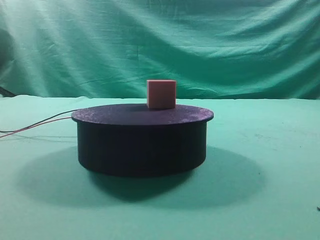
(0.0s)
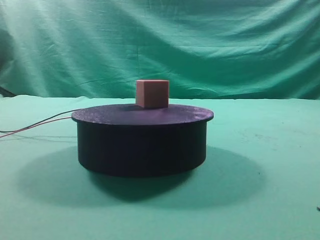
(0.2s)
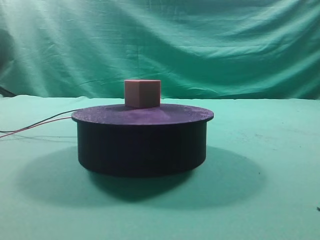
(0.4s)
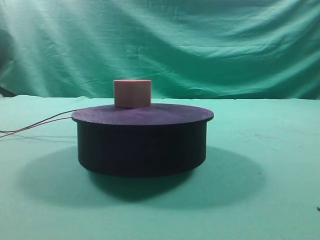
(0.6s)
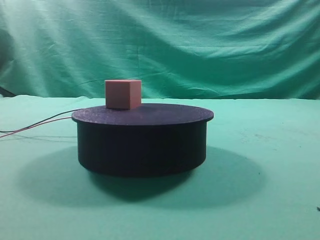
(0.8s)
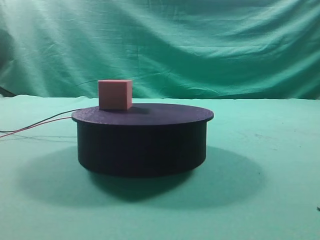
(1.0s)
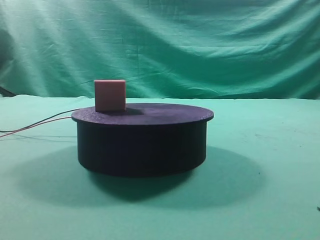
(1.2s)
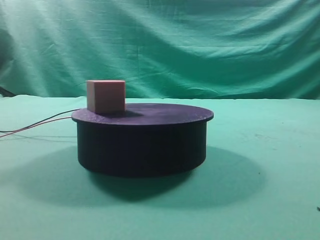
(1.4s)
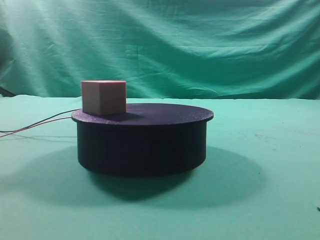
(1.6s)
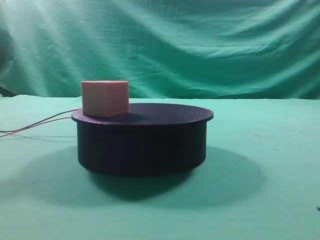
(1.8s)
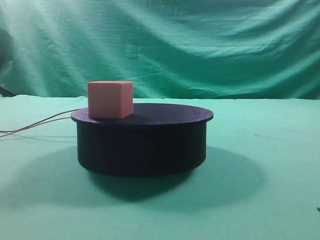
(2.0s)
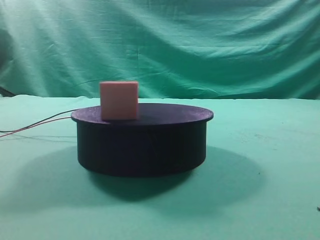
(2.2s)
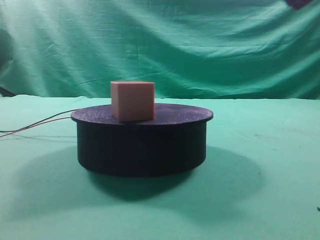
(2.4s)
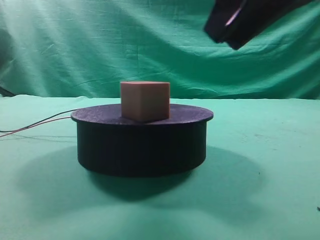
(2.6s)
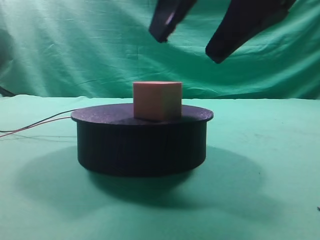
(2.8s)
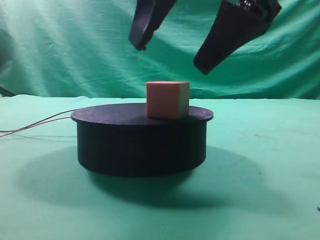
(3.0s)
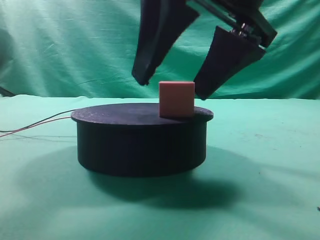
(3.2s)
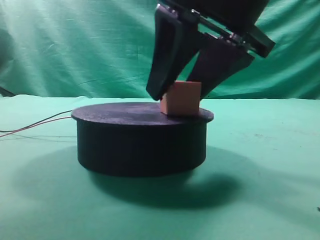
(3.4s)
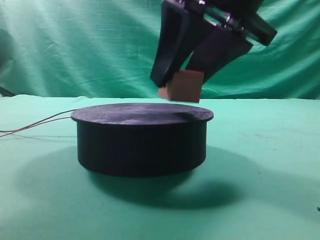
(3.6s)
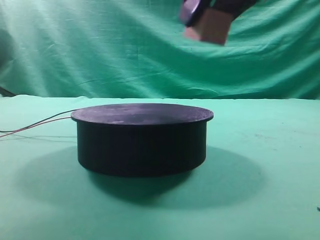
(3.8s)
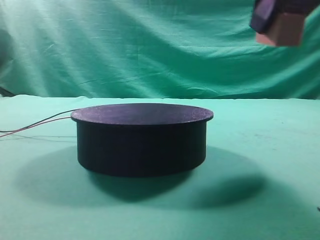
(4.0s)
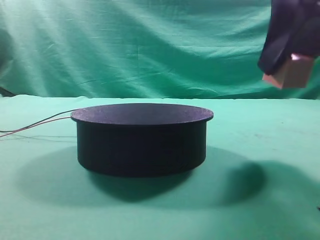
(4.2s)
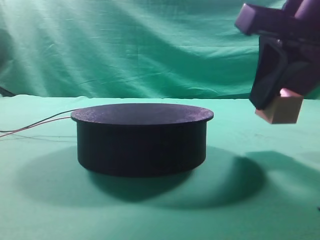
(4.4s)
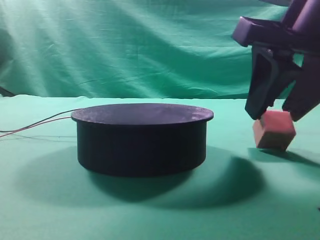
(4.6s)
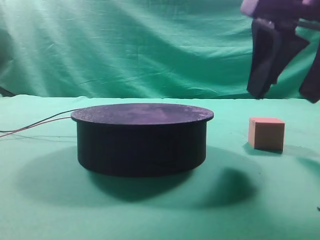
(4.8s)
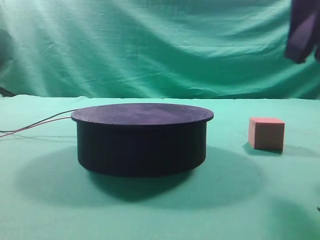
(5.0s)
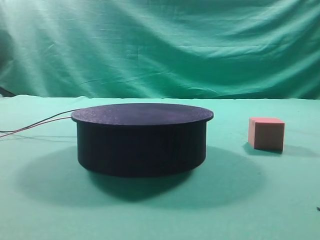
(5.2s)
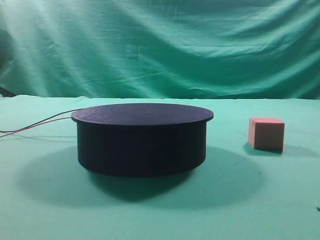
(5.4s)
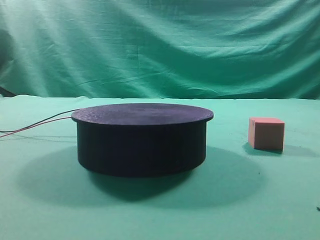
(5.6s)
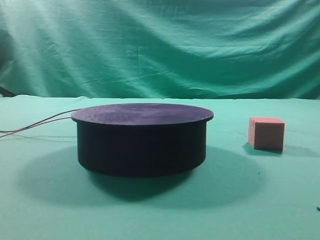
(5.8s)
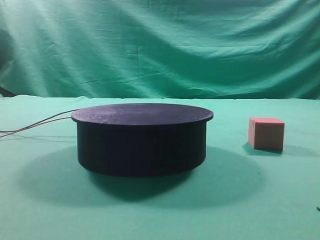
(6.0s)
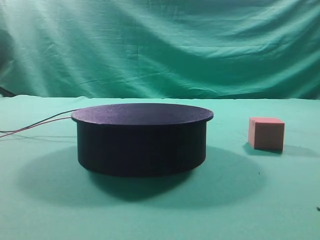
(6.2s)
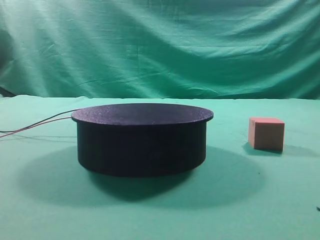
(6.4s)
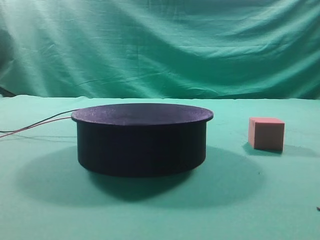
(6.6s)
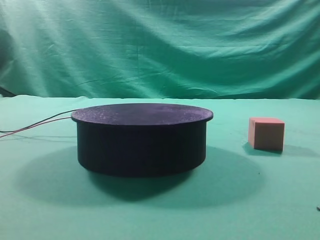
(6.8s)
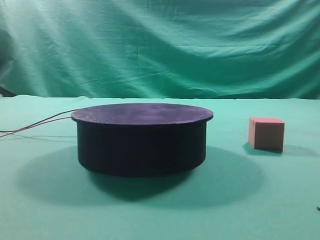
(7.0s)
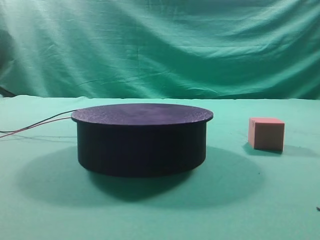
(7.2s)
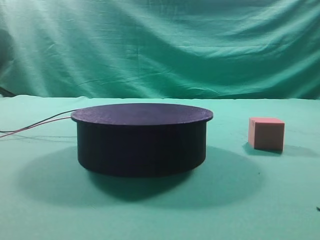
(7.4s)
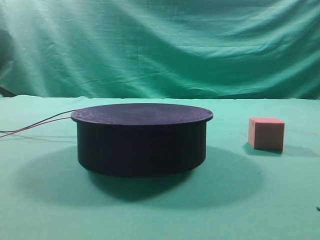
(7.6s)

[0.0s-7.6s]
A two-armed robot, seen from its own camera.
Task of the whole recording: grasp the rotating cube-shaped block on the turntable and place it on the table.
Step, 0.0s to 3.6s: Grasp the rotating cube-shaped block on the turntable.
Step, 3.8s to 4.8s: Place the cube on the desk.

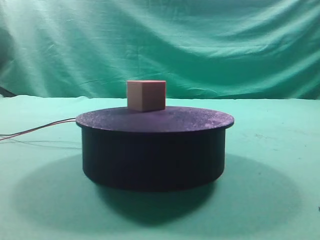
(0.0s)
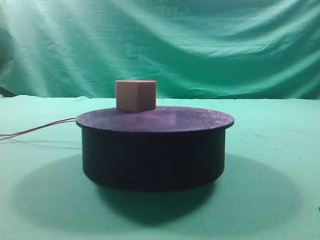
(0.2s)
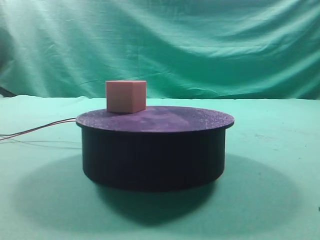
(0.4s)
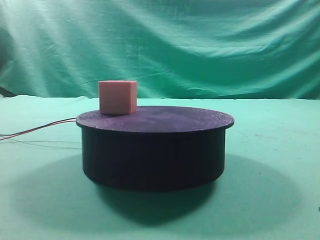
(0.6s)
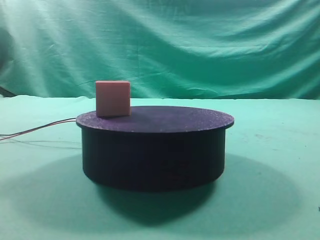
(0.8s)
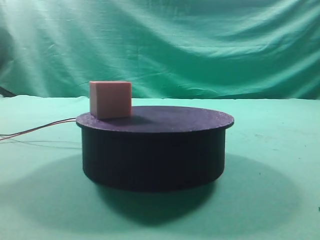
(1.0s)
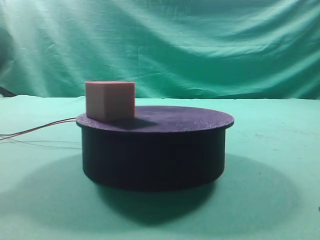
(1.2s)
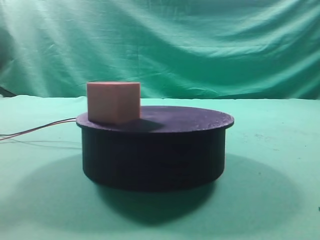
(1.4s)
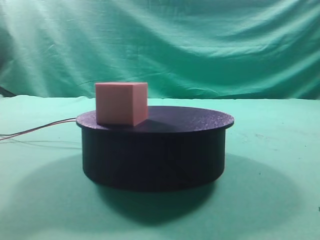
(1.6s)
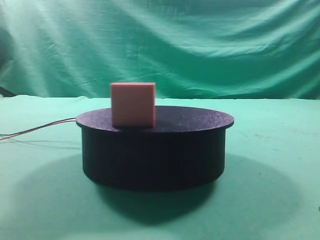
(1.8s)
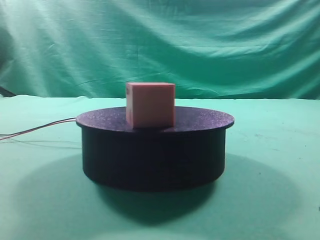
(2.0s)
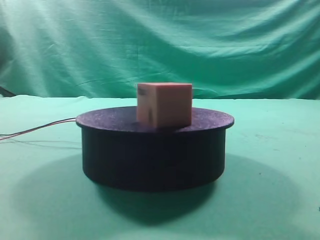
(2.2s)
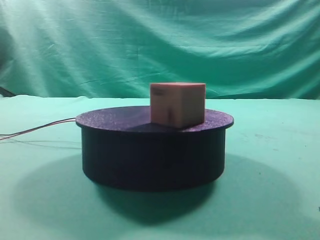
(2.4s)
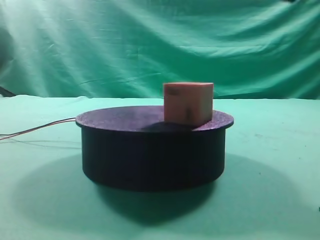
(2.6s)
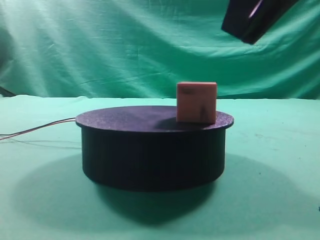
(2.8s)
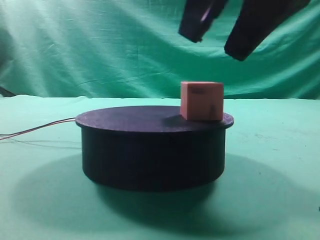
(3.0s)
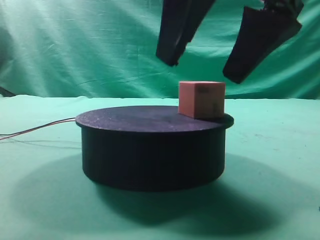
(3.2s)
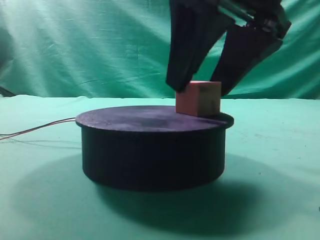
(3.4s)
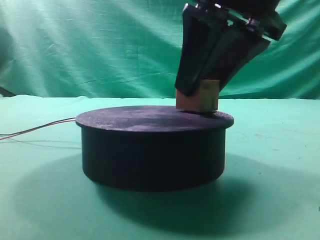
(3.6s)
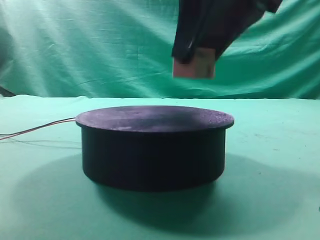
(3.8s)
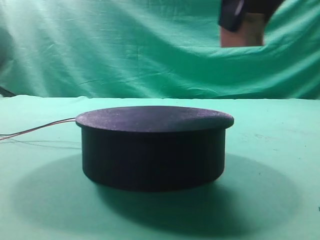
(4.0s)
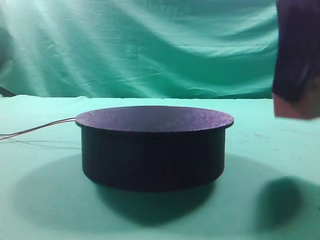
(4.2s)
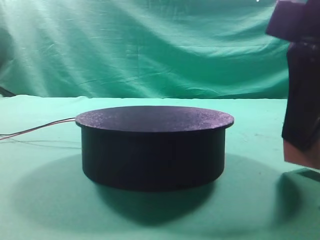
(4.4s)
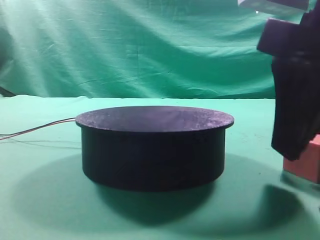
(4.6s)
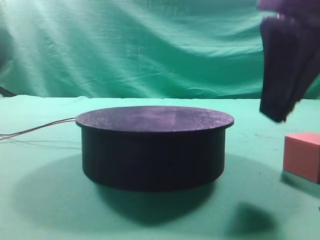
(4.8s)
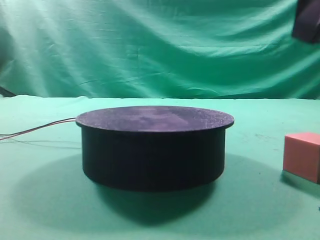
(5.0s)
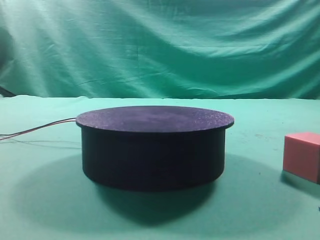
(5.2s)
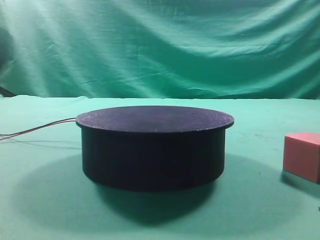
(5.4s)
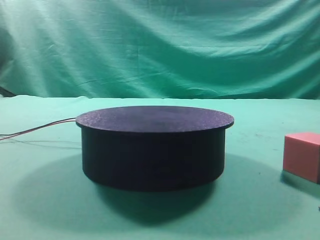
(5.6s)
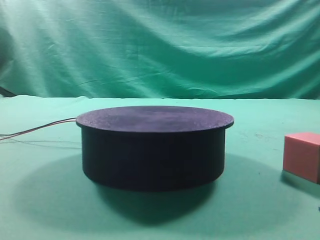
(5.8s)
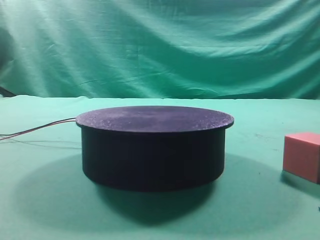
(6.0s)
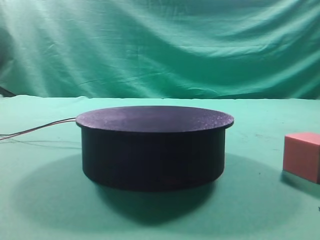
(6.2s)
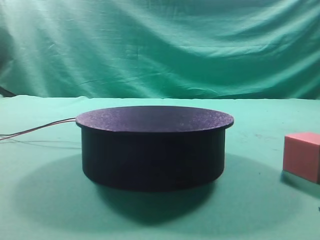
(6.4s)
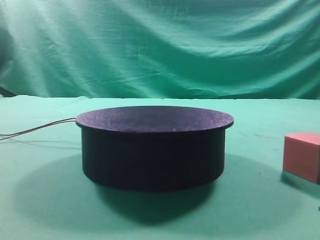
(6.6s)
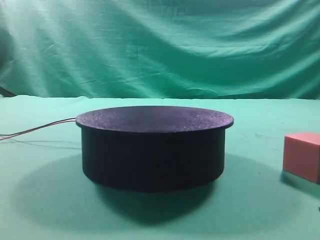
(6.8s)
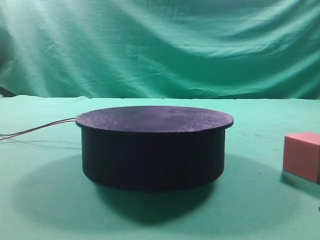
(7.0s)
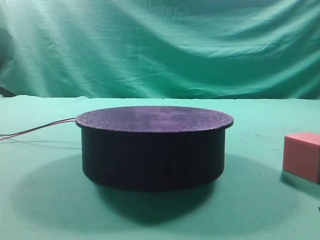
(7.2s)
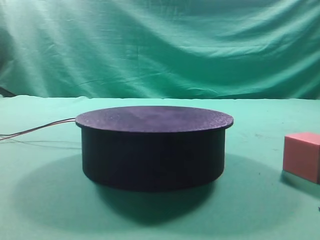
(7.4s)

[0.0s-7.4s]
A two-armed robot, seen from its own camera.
Task of the whole recording: grasp the rotating cube-shaped block on the turntable and place it on the table.
Step, 0.0s to 3.6s: Grasp the rotating cube-shaped block on the turntable.
Step, 3.8s to 4.8s: Place the cube on the desk.

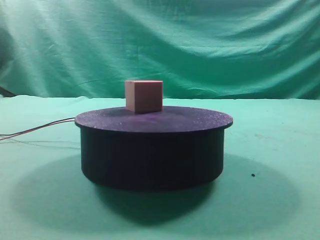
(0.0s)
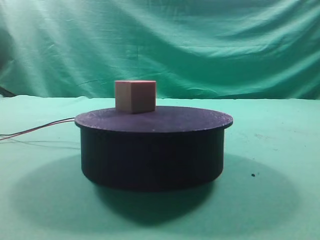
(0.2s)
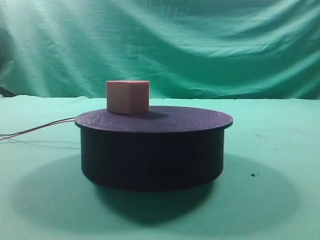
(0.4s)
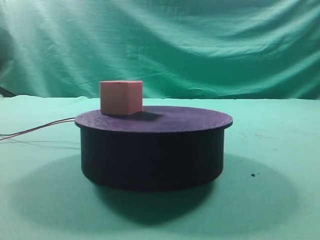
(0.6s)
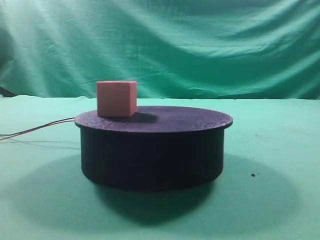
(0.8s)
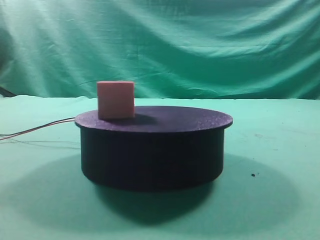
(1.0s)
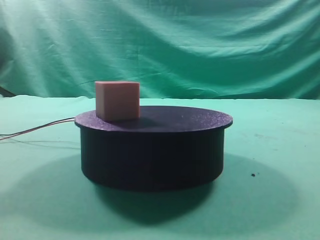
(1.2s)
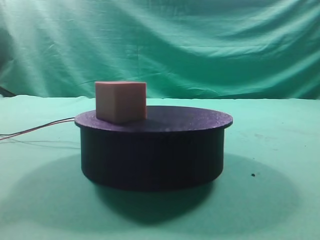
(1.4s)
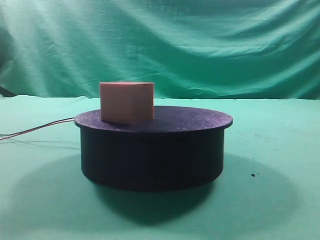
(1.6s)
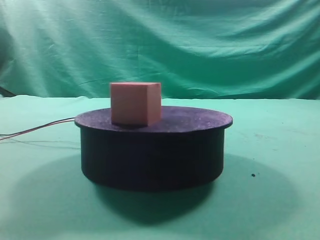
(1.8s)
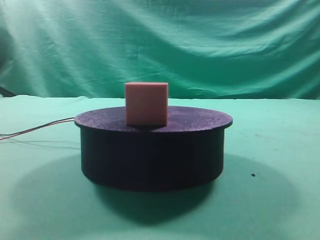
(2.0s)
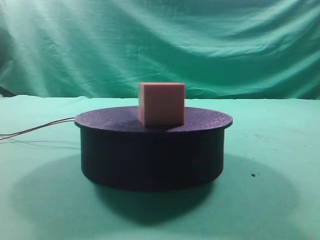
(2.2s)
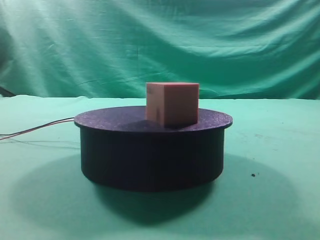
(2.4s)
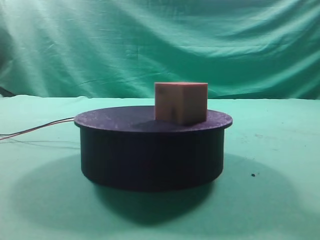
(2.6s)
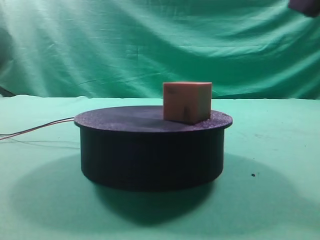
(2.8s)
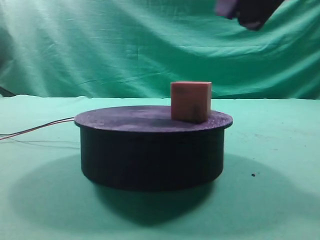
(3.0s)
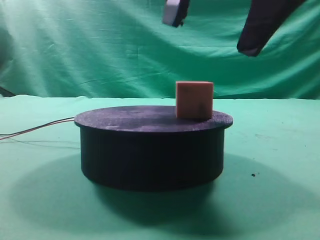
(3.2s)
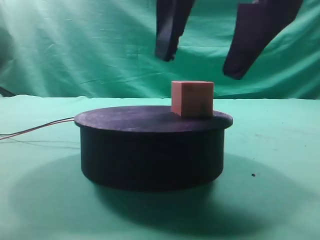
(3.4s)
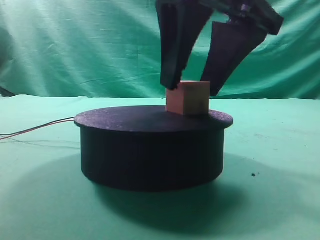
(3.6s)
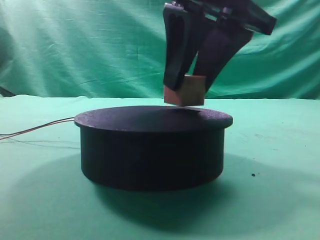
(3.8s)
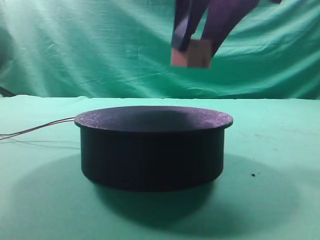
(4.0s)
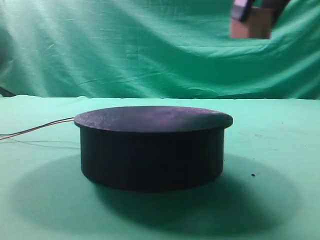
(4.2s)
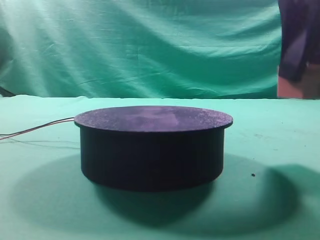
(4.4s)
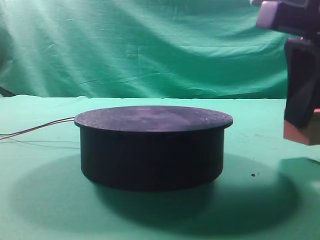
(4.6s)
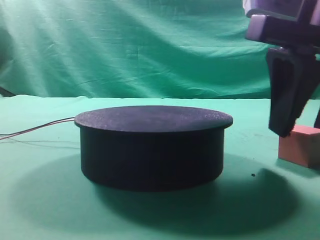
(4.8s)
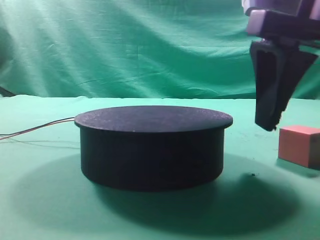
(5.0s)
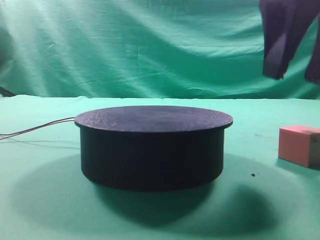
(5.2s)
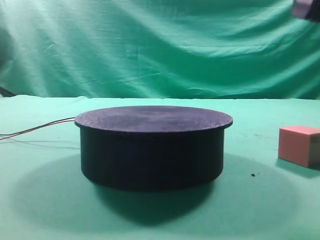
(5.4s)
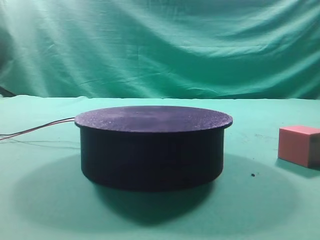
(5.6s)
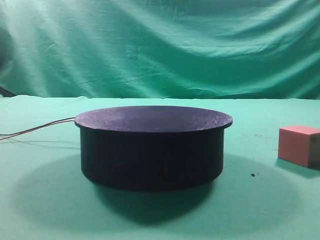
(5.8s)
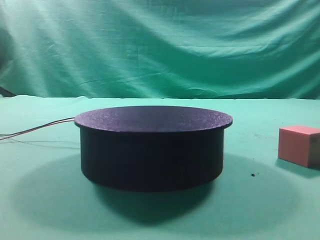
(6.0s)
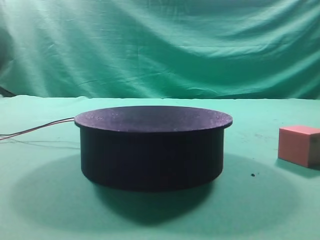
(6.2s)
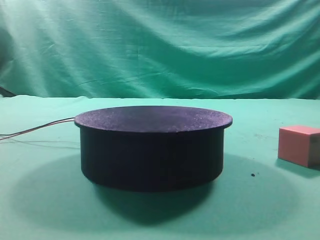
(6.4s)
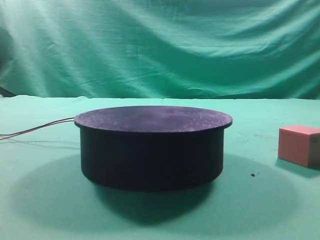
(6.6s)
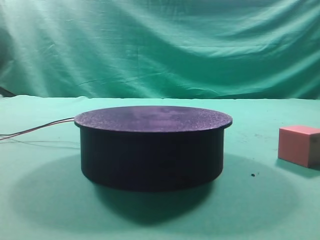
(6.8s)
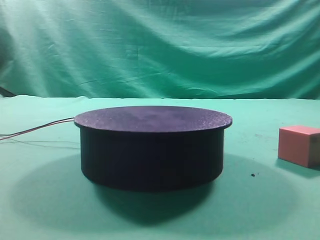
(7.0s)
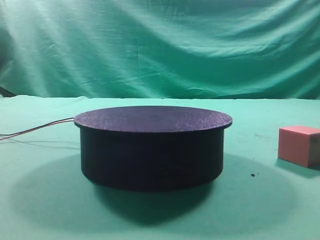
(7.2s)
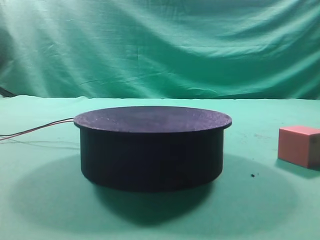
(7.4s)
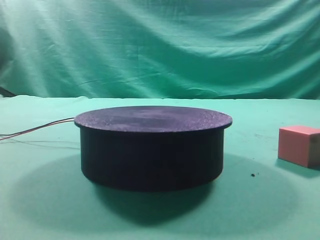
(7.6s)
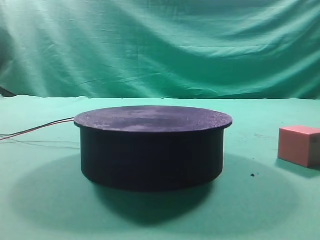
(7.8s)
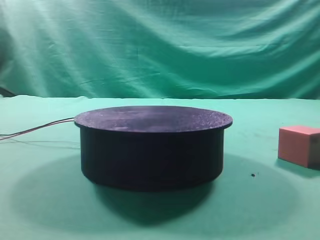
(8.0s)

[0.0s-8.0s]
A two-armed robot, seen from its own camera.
Task of the whole recording: grasp the rotating cube-shaped block on the turntable and place it on the table.
Step, 0.0s to 3.8s: Grasp the rotating cube-shaped block on the turntable.
Step, 4.0s to 5.2s: Place the cube on the desk.
